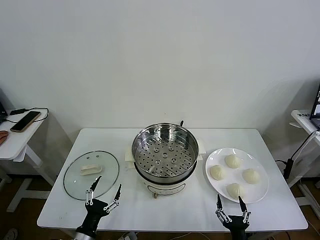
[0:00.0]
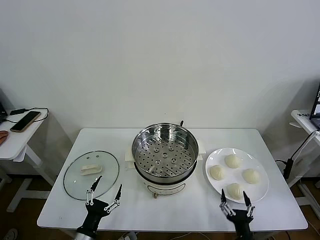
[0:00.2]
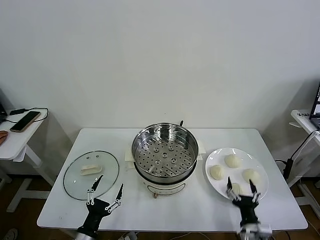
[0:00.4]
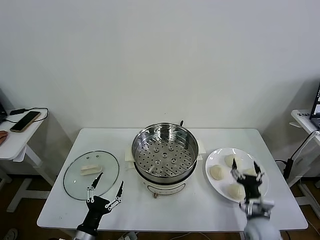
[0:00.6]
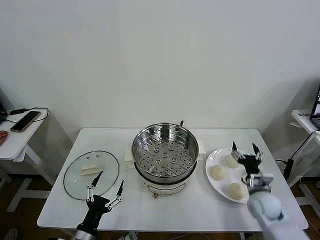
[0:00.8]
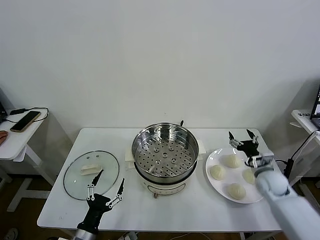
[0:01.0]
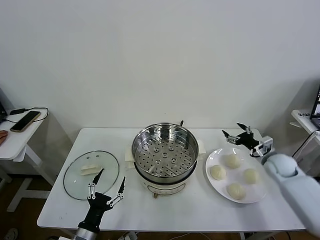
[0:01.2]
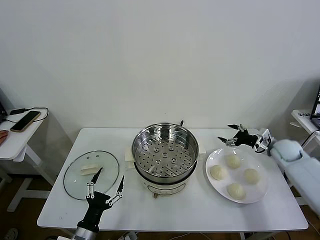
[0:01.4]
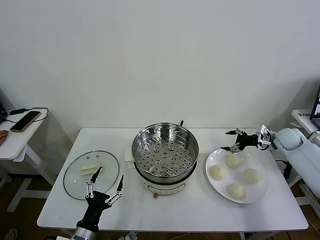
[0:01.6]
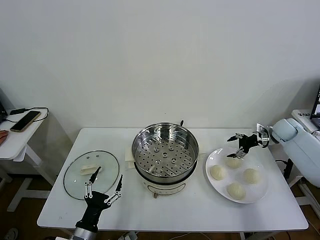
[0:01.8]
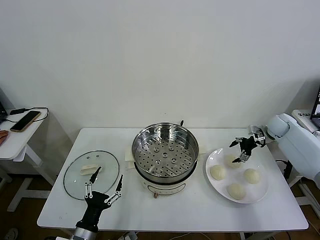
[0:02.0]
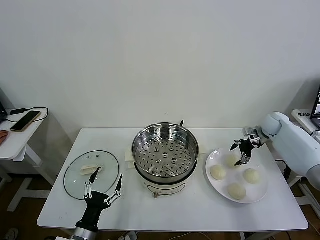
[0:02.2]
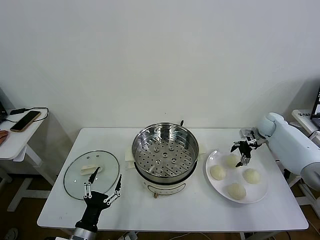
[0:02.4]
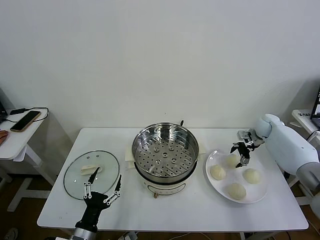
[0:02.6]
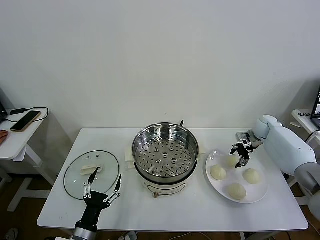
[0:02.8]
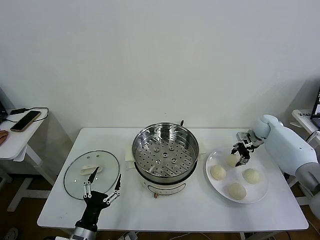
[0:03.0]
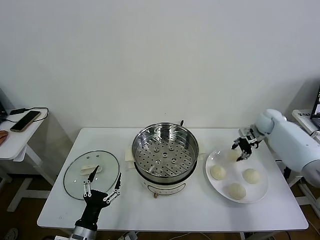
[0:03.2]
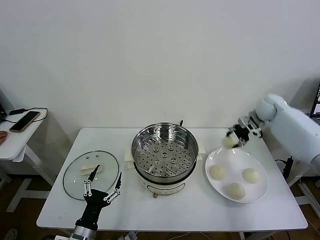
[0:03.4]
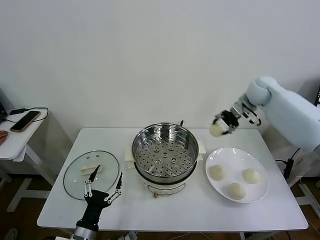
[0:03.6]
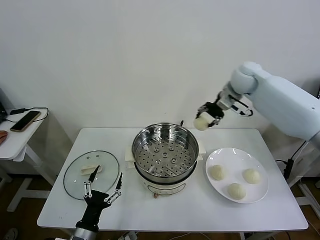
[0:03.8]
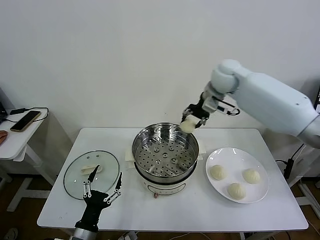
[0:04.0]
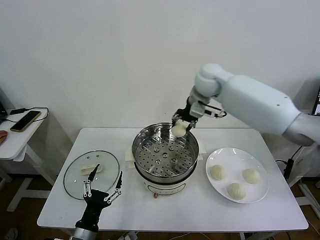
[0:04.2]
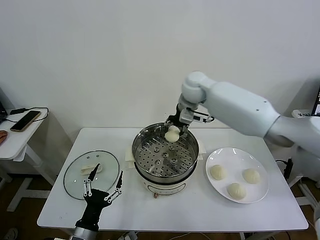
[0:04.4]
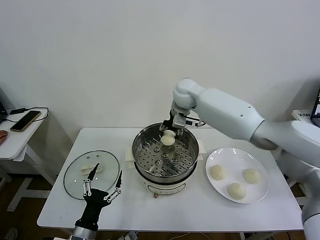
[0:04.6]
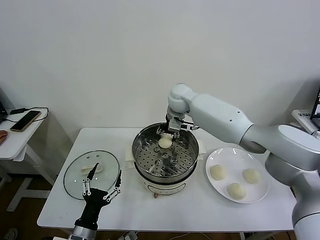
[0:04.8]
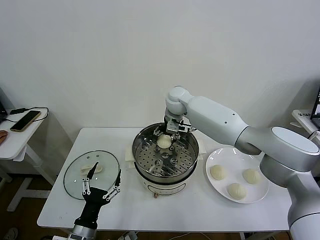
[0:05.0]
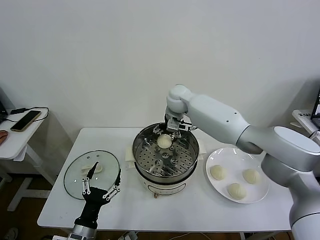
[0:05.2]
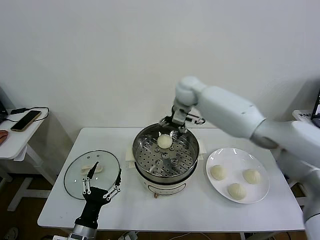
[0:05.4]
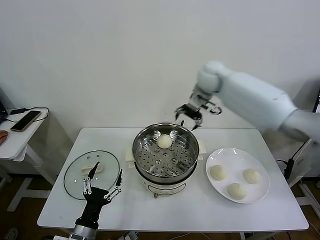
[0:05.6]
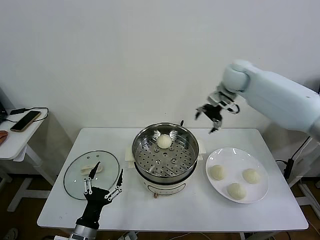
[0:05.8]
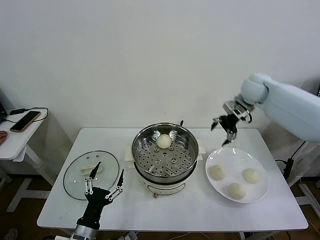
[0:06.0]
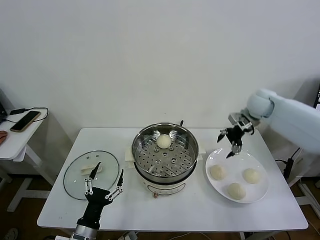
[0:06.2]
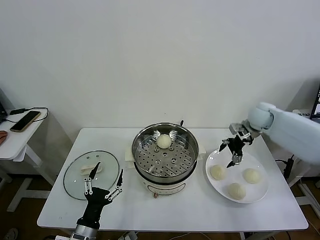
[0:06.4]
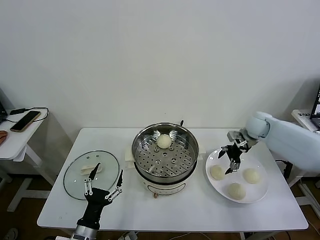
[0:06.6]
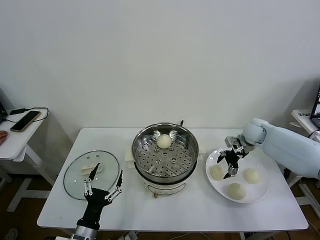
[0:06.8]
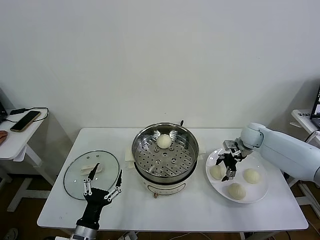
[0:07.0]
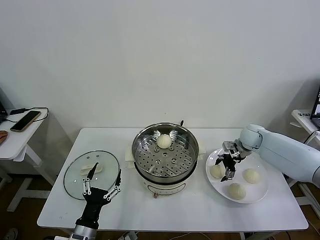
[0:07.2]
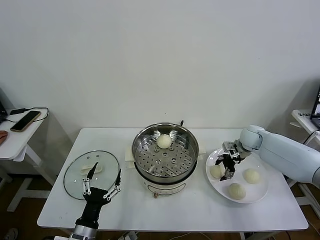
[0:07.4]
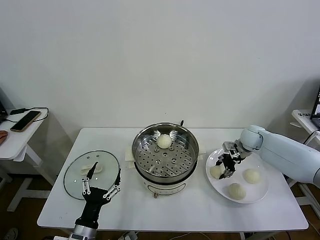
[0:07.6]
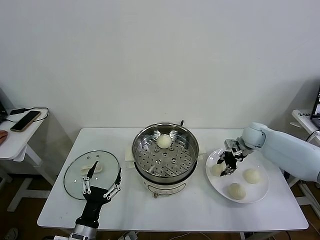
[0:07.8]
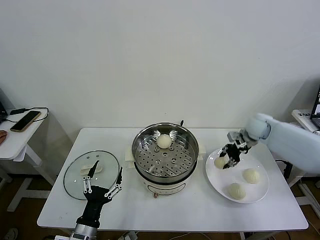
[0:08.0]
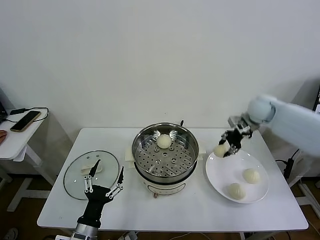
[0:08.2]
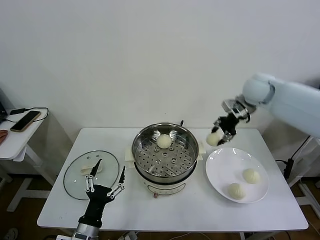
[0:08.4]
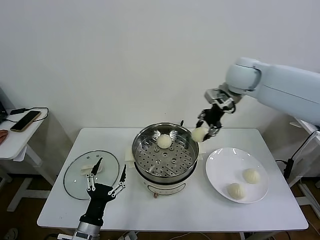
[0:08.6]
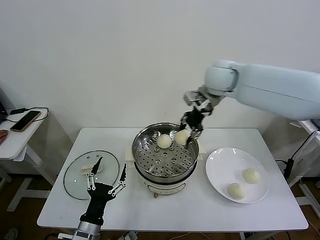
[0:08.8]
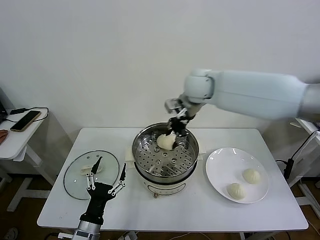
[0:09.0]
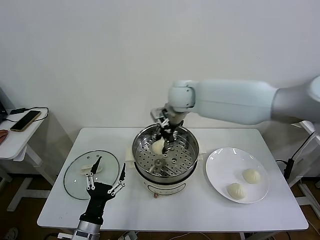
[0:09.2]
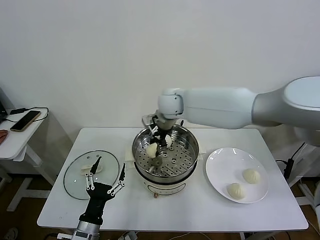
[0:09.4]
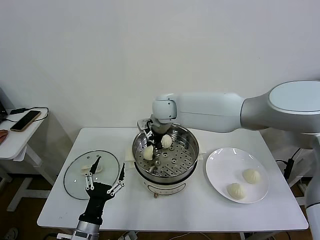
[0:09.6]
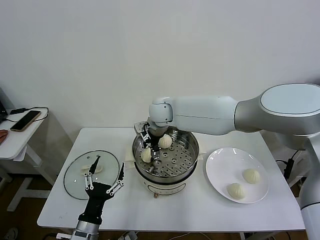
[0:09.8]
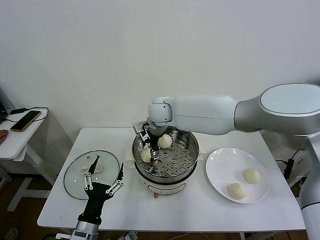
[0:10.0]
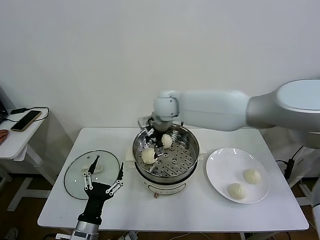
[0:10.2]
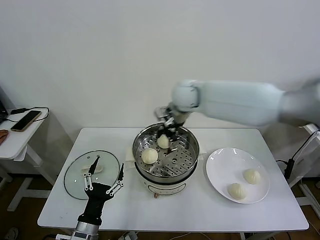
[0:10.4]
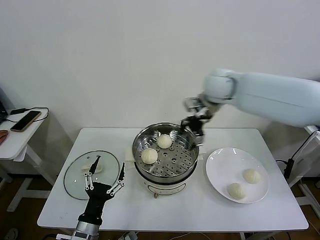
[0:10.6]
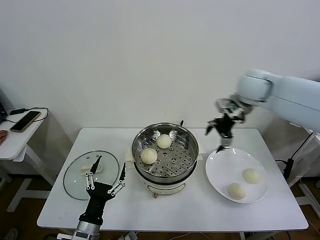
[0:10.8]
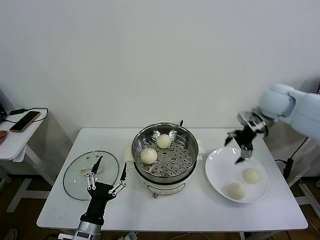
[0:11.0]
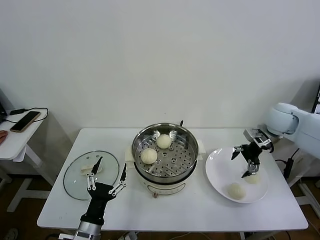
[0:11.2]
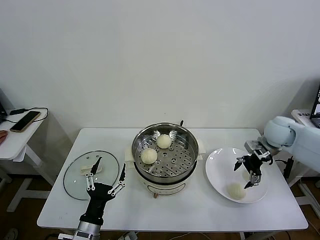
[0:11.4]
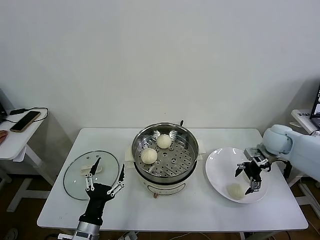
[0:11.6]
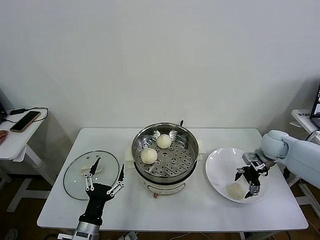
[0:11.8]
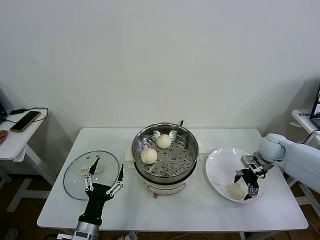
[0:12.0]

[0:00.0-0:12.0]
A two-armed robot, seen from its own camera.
Task of the whole recording: take steamed baozi put them in steamer then cover it.
Step, 0.0 to 3.0 s: Grasp the baozi in the plate with right gripper.
Step, 3.2 to 5.0 s: Place the baozi on the steamer with right gripper.
Step, 5.2 to 7.4 s: Grasp the baozi in the plate with right gripper.
Step, 7.6 to 9.8 s: Place the baozi on the steamer with right gripper.
1.6 to 3.0 s: The right gripper shifts roughly 10 cm forward and to the left, and closes its fingers.
3.0 to 4.4 s: The right gripper shifts approximately 35 cm to the left and upward.
4.4 to 6.0 s: The right gripper is displaced to the right by roughly 25 cm, and opens.
6.0 to 7.6 s: The right gripper shifts approximately 15 cm downward, and closes.
7.6 to 9.0 s: The right gripper moves to the left and upward, roughly 35 cm.
9.0 to 10.4 s: The right gripper moves about 10 cm to the left and comes back, and opens its fingers.
10.4 to 12.0 s: The right gripper shifts about 35 cm to the right and downward.

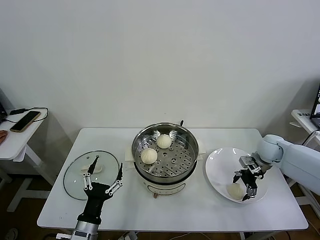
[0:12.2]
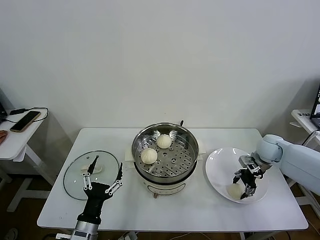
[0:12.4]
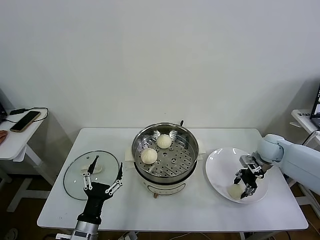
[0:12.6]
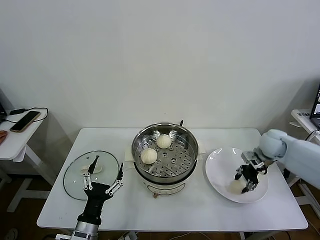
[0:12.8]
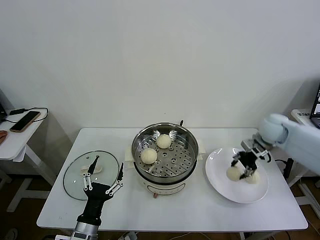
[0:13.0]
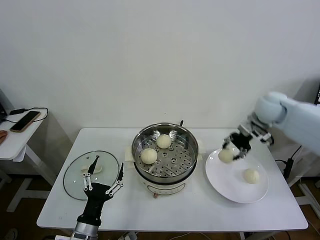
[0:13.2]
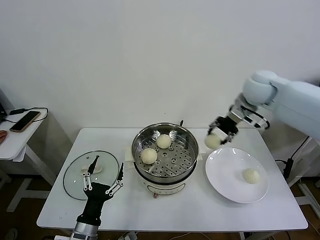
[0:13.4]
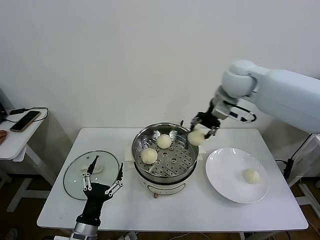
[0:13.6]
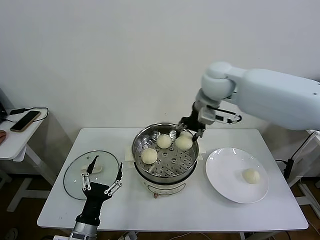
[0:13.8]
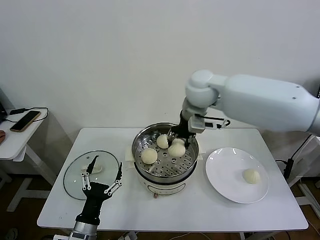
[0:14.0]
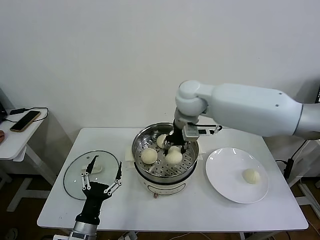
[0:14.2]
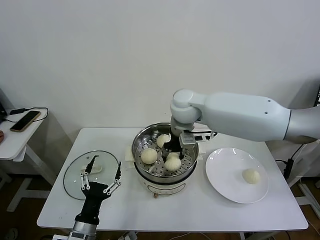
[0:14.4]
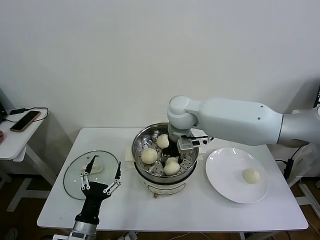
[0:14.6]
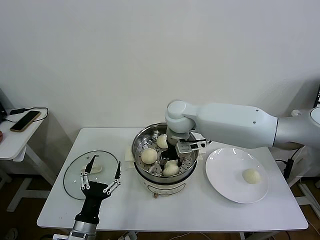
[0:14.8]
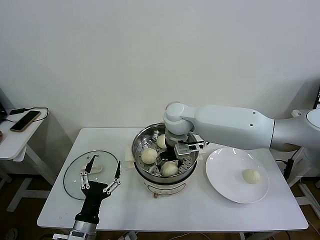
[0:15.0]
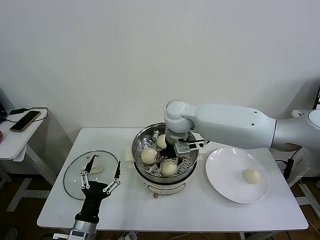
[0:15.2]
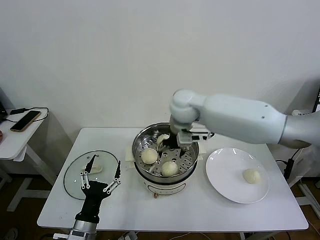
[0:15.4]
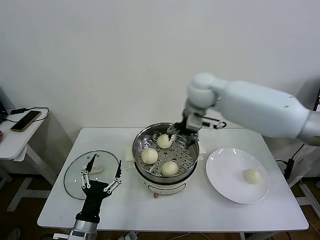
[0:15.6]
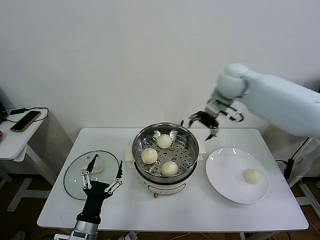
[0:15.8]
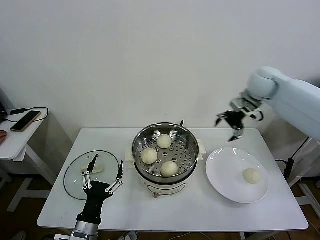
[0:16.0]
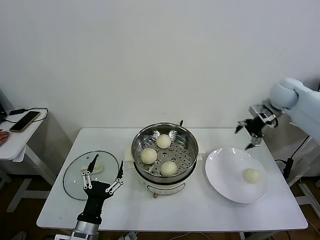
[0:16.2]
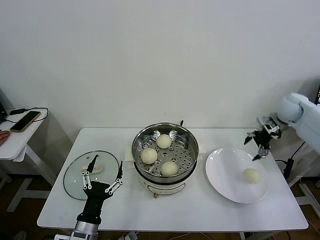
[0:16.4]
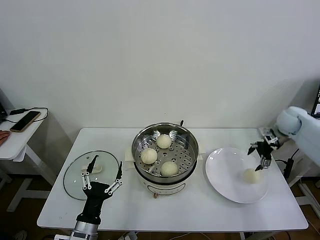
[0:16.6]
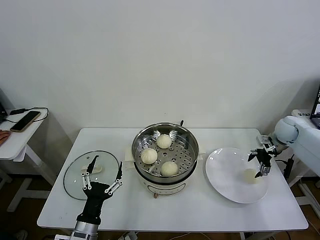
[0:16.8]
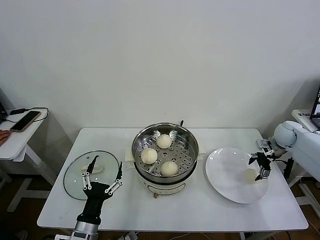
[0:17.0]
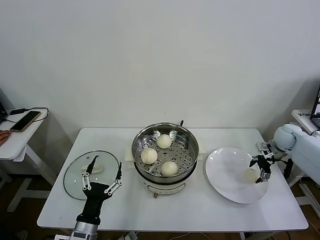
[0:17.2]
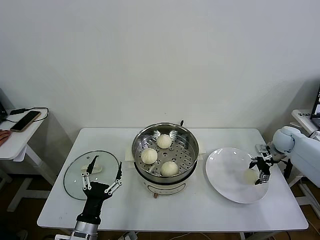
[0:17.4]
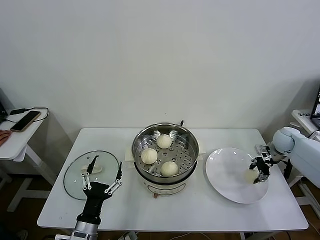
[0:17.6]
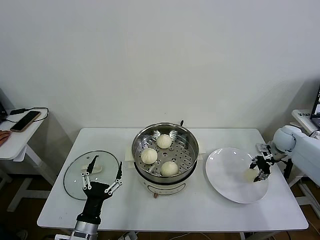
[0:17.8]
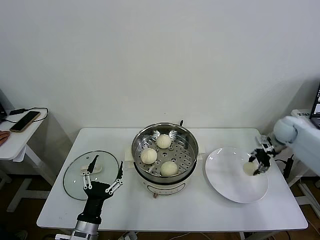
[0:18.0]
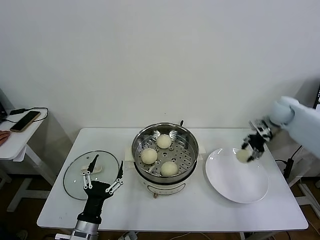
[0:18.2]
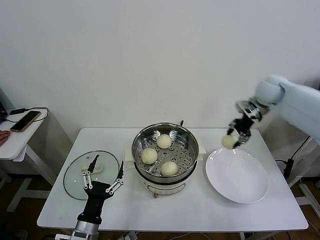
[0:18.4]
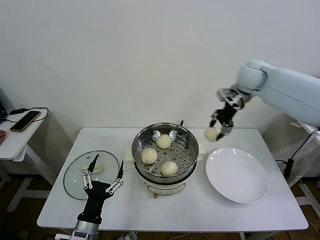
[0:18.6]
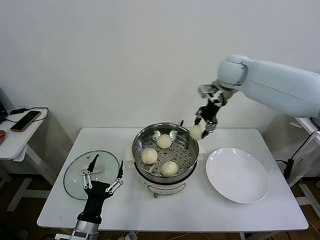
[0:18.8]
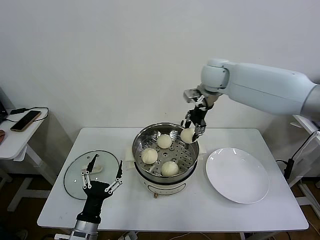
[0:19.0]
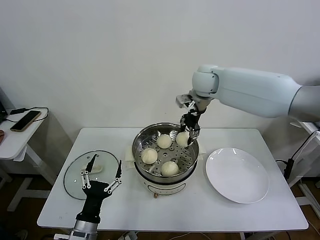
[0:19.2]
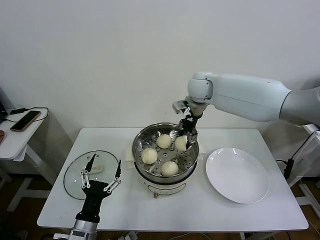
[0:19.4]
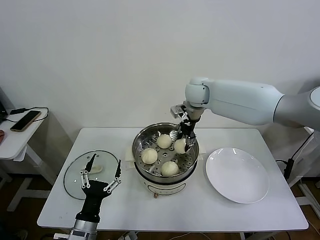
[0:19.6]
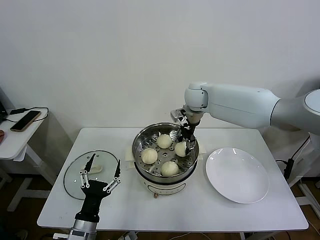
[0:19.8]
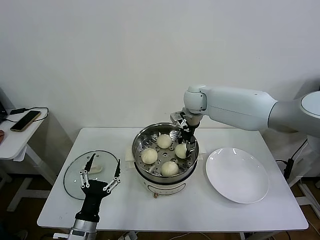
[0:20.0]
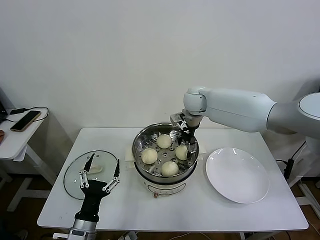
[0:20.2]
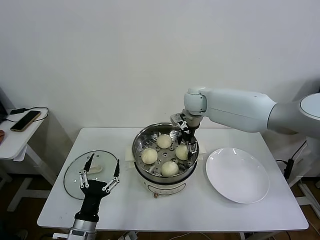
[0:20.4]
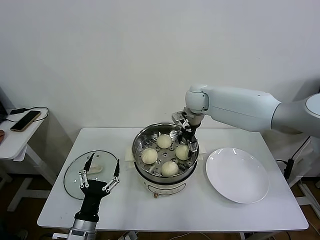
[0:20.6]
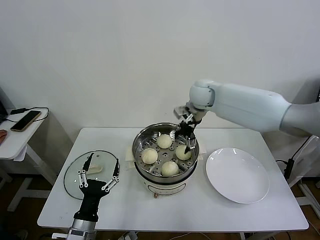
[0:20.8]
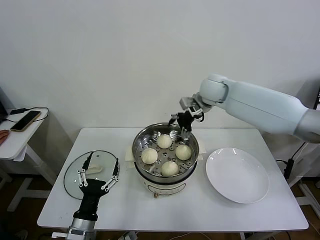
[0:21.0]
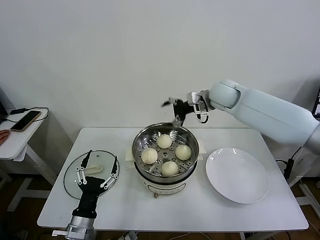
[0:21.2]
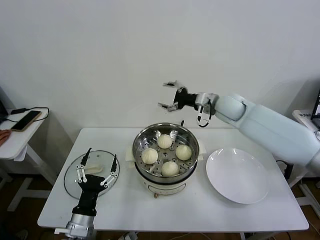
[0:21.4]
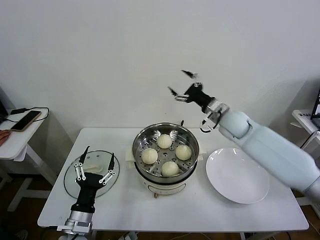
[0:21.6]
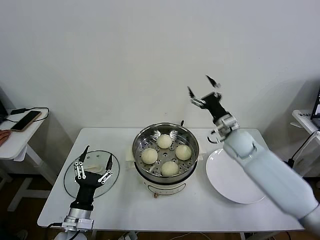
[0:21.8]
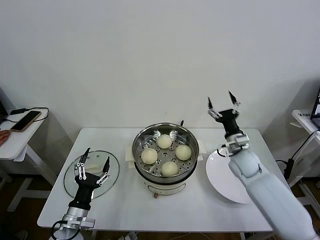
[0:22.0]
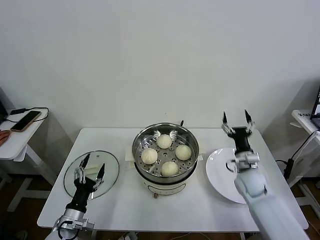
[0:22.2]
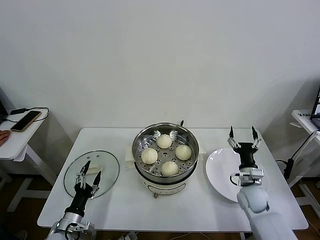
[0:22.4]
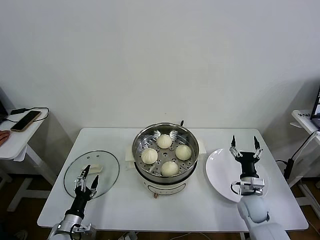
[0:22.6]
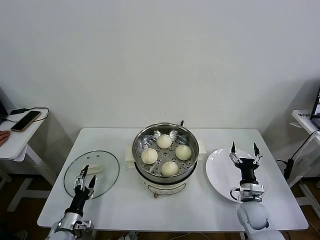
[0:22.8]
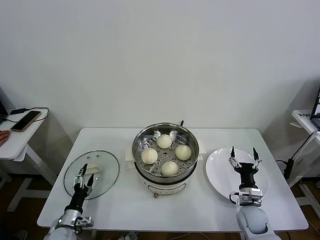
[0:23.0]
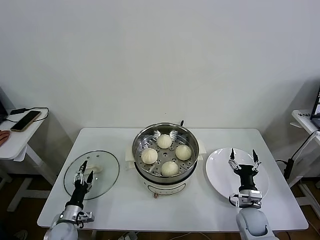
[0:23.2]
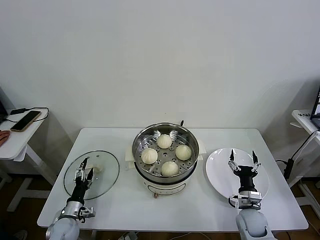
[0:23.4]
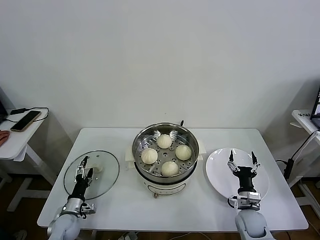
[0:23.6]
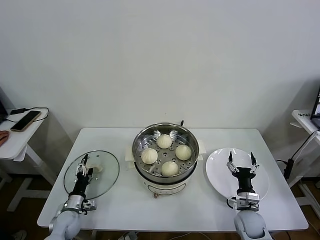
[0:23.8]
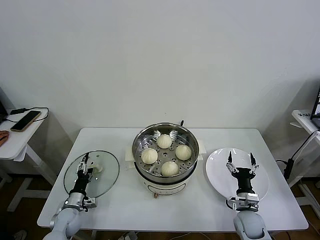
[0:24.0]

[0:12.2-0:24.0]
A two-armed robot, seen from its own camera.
Task of the whole recording: take steamed baozi put them in steamer then cover it.
Step, 12.8 to 15.0 s: Place the baozi on the steamer with right gripper.
Step, 15.2 to 17.8 s: Grasp the baozi in the plate with right gripper.
Step, 18.0 to 20.2 s: Place the baozi on the steamer with right gripper.
12.2 to 13.6 s: The right gripper heads upward and to the left, covering approximately 30 cm, and closes.
13.6 to 15.2 s: The right gripper shifts some 20 cm to the left and downward, and opens.
15.2 to 16.6 s: The right gripper heads to the right, covering roughly 40 cm.
16.6 to 18.2 s: The right gripper moves approximately 10 cm downward and comes back, and closes.
18.2 to 19.6 s: The right gripper goes about 30 cm to the left.
19.6 to 21.0 s: The right gripper opens its fingers.
21.0 to 22.6 s: The left gripper goes about 15 cm downward and to the left; the right gripper goes about 40 cm downward, backward and to the right.
22.6 to 24.0 s: The right gripper ends up some 5 cm from where it was; the left gripper goes some 10 cm forward.
